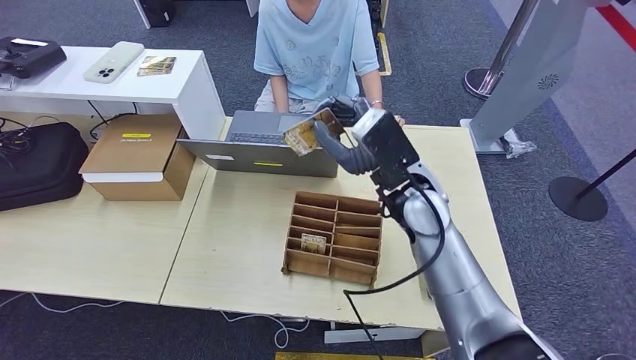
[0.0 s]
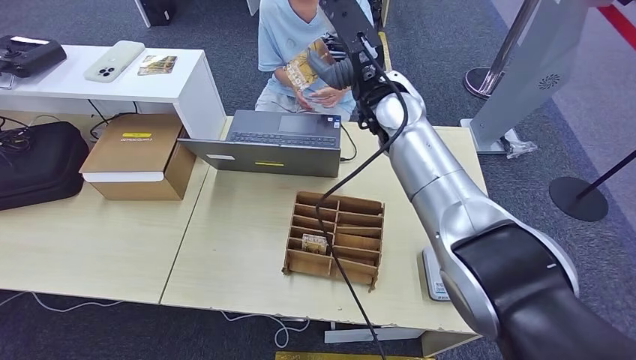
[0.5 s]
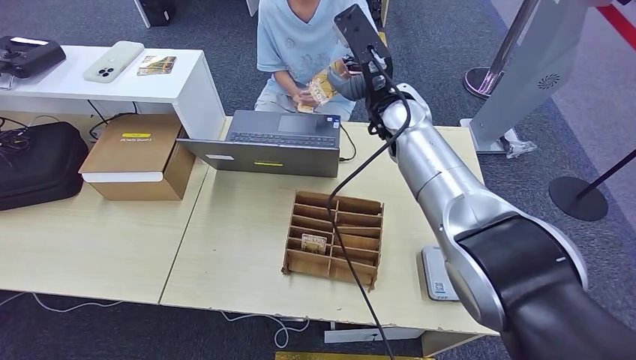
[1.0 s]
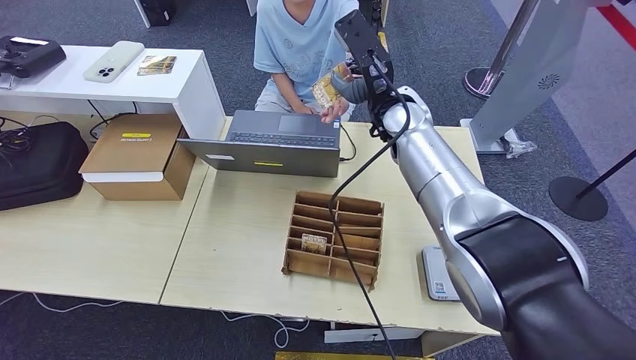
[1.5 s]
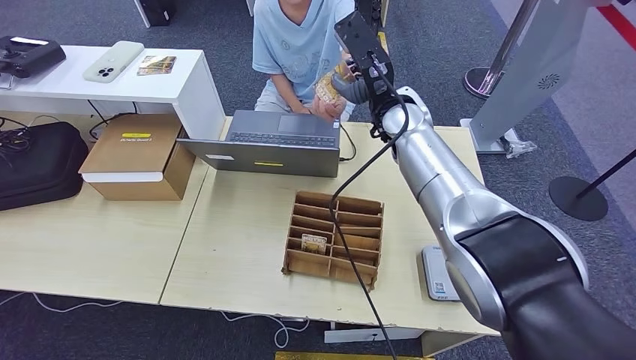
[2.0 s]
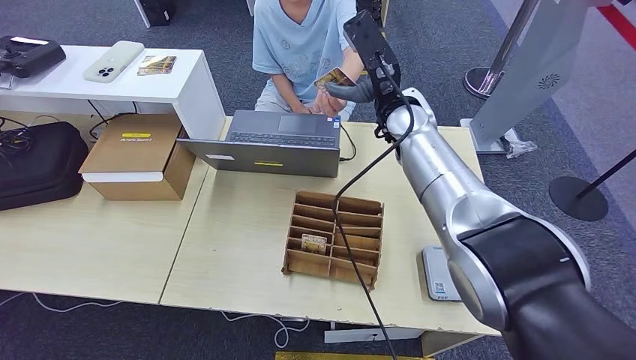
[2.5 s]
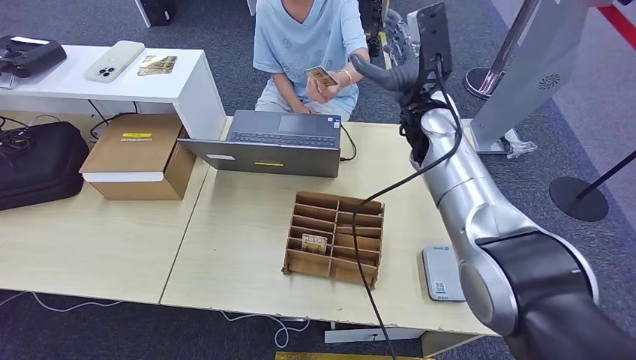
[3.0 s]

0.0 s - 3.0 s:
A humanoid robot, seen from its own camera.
Step, 0.0 s - 2.5 s: Hand the room key to the person.
0.0 s - 1.5 s: The right hand is displaced forward and upward by roughly 15 cm.
